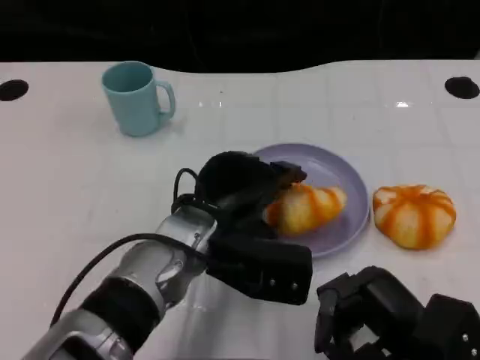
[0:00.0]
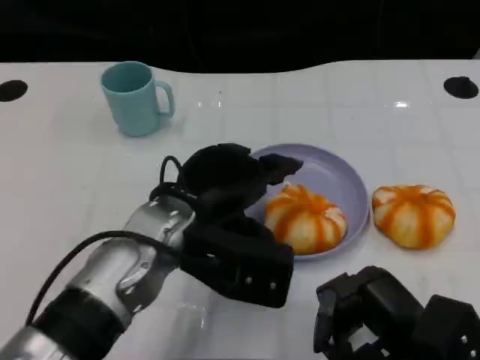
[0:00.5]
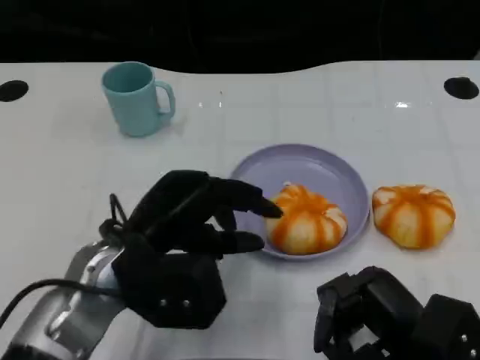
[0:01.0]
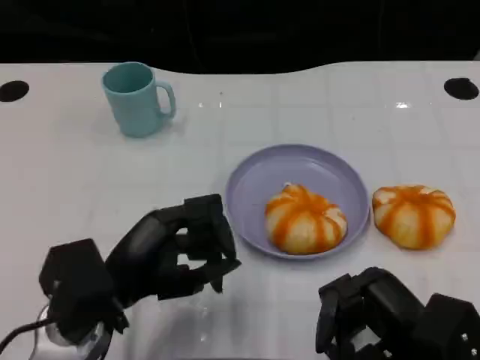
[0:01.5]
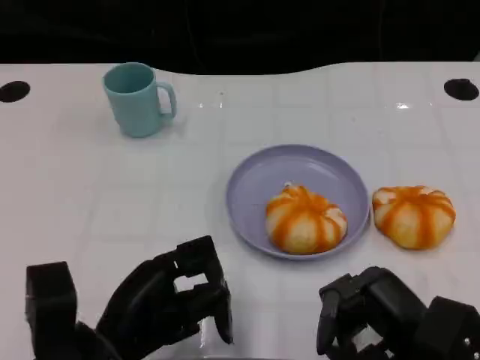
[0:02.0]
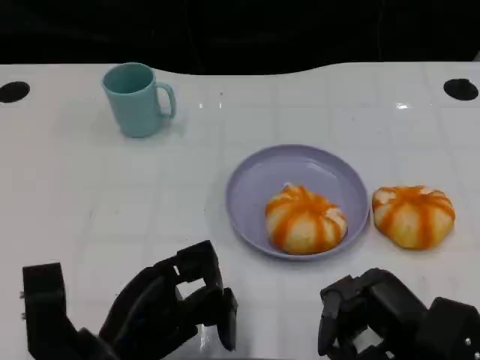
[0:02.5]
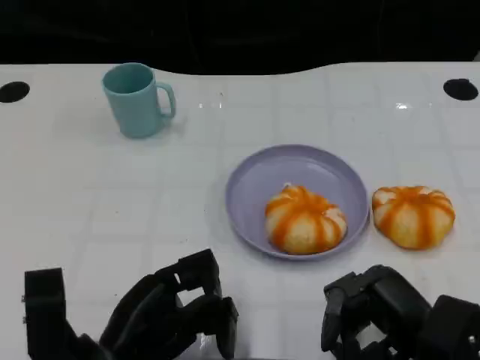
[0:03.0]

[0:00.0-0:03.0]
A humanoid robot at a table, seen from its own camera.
Task of the whole recording: Grasp the bread from the table and place it into the plate.
0:00.0 to 0:01.5: The left hand is displaced to the left and backward by about 15 cm.
0:01.5 to 0:03.0: The left hand moves roughly 5 cm.

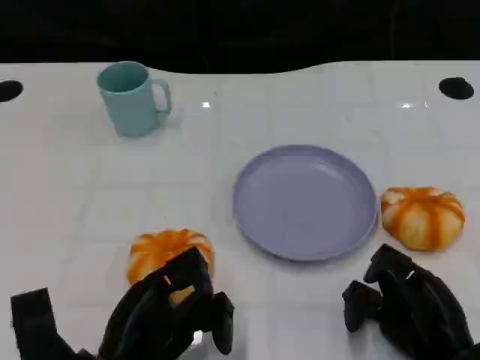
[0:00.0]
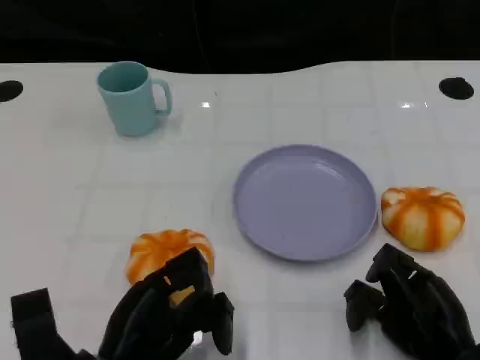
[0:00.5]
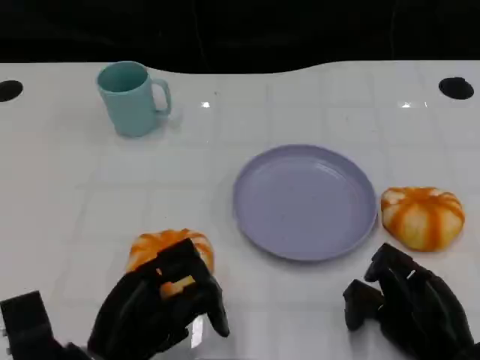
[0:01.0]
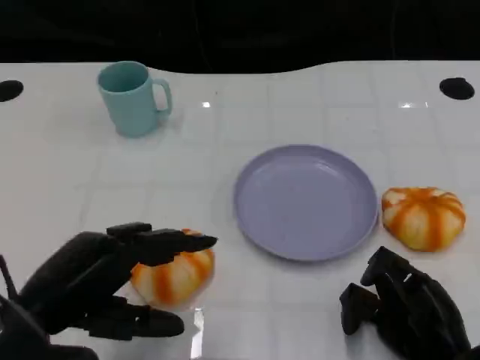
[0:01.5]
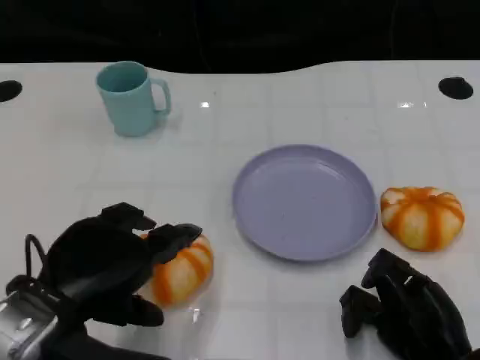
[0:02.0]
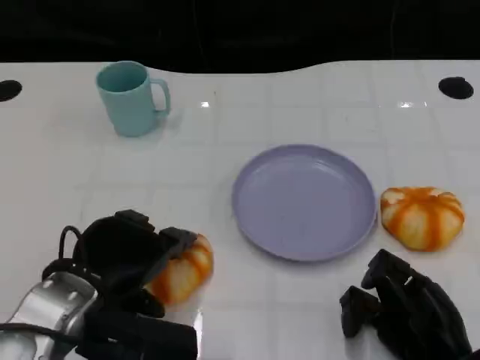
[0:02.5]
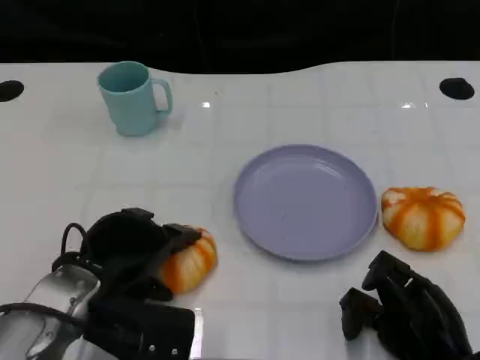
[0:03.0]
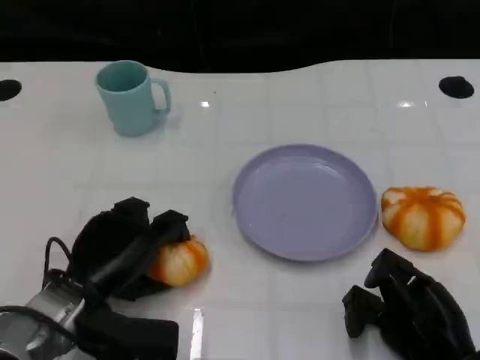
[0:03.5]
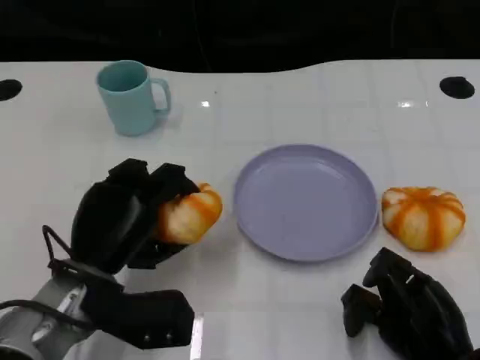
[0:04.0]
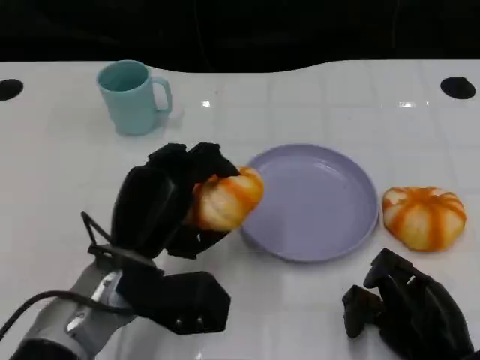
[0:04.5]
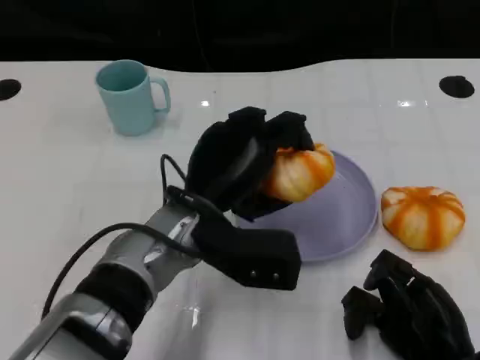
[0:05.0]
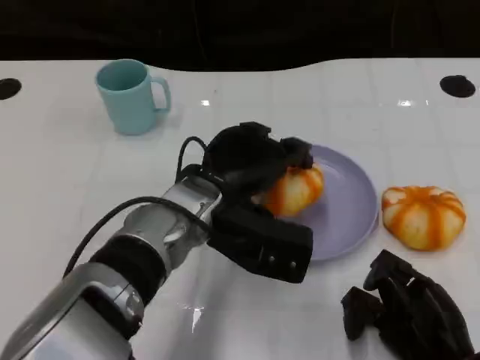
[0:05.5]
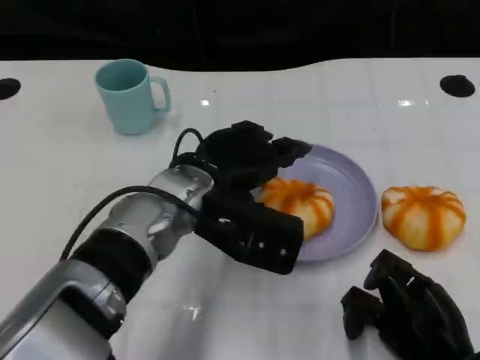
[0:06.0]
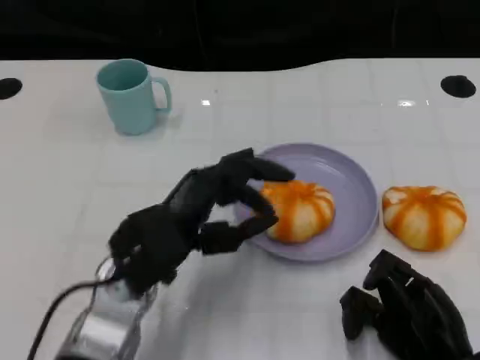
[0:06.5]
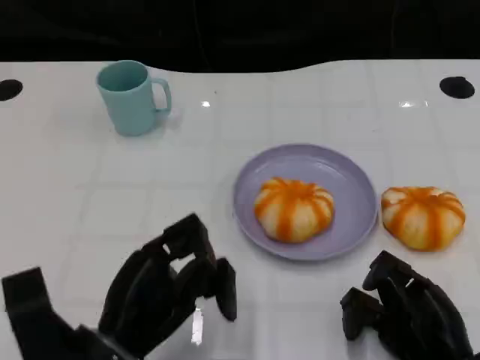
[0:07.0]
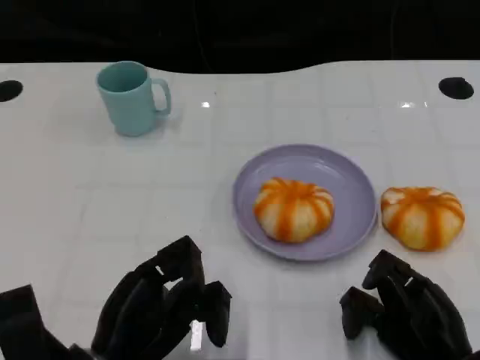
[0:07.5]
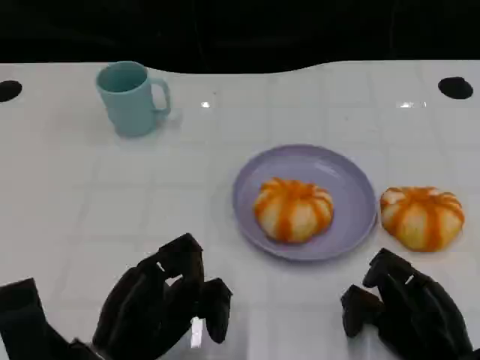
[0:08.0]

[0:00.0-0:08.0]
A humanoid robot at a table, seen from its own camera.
Task of the whole recording: Grasp the bread from the table and place it into the plate.
0:00.0 to 0:02.0: The left hand shifts some 10 cm upward.
0:02.0 to 0:04.0: The left hand moves downward and forward, approximately 10 cm.
0:04.0 to 0:06.0: The left hand goes some 15 cm to the right, upward and forward.
0:06.0 to 0:08.0: The left hand goes approximately 20 cm backward, to the left and downward.

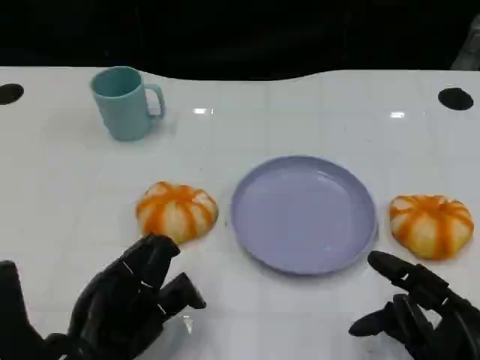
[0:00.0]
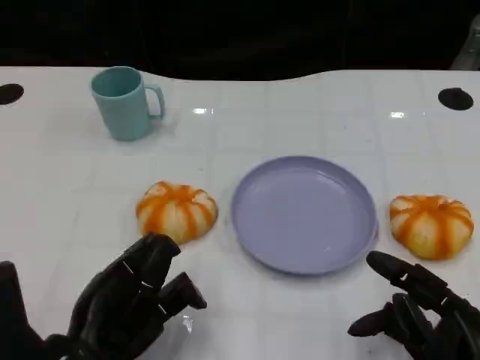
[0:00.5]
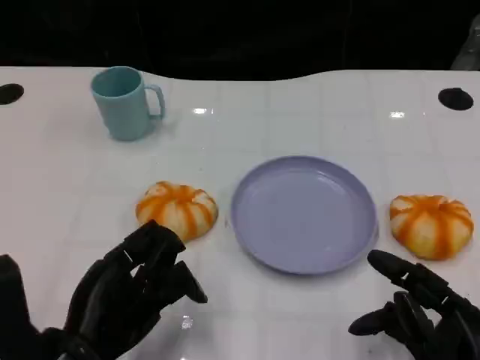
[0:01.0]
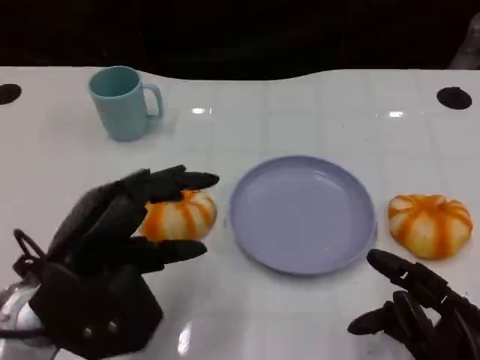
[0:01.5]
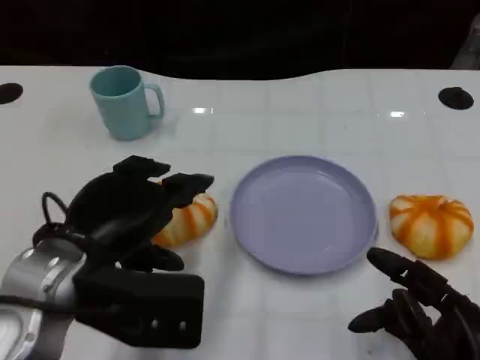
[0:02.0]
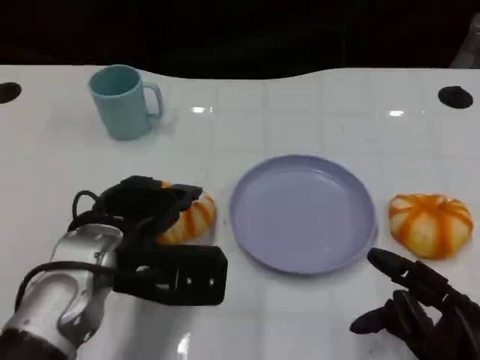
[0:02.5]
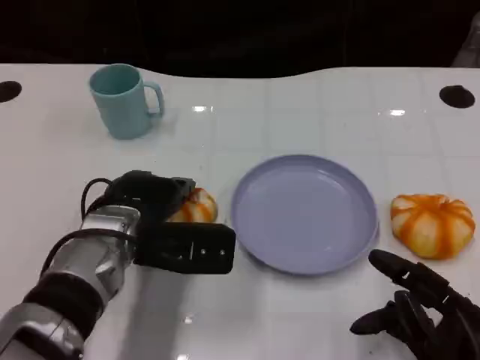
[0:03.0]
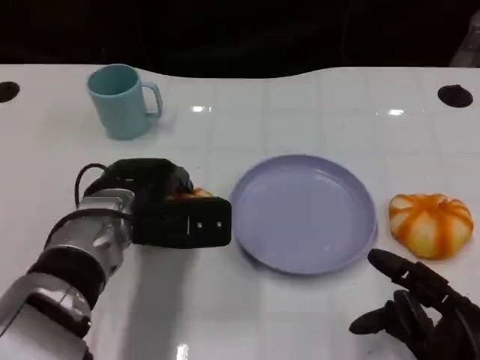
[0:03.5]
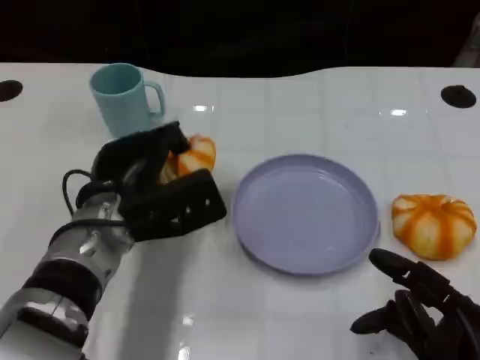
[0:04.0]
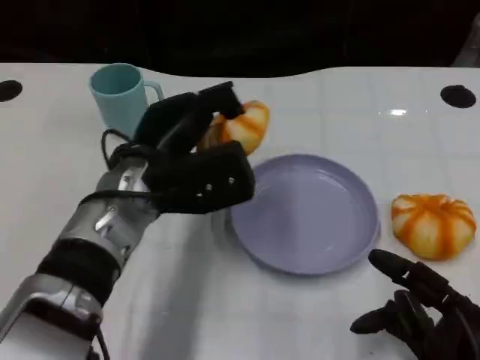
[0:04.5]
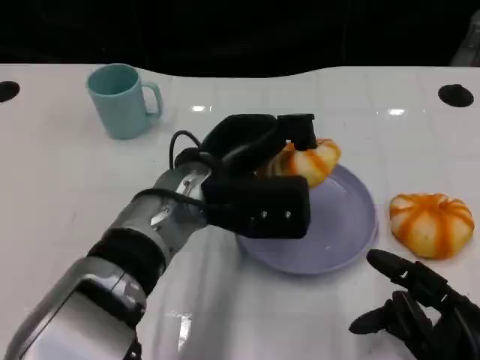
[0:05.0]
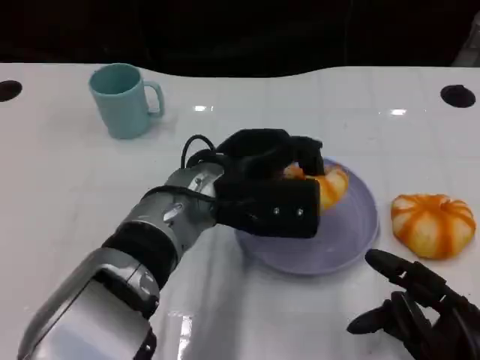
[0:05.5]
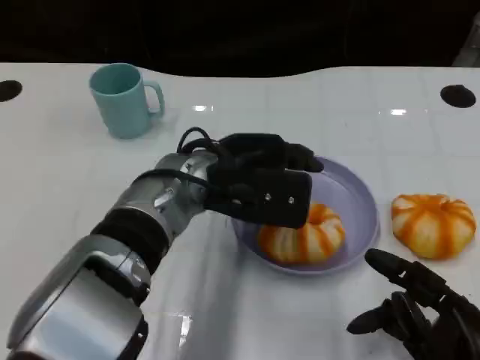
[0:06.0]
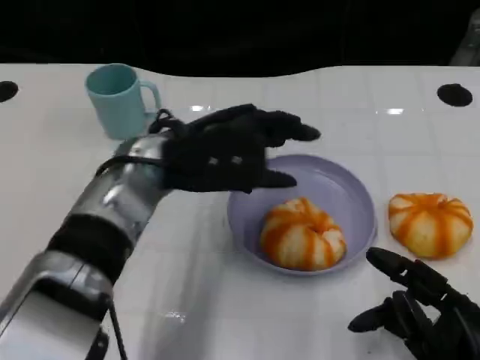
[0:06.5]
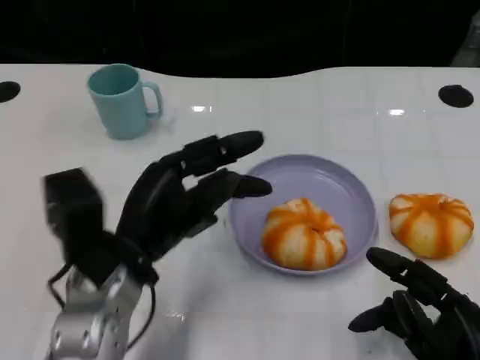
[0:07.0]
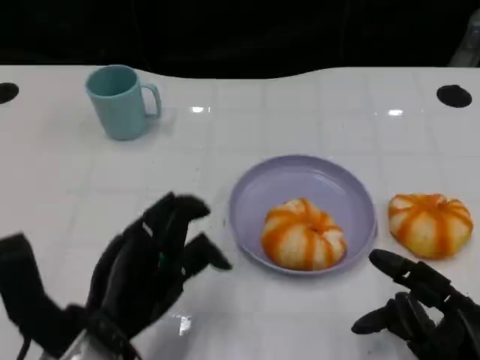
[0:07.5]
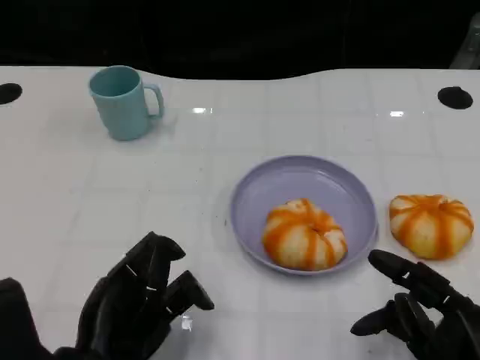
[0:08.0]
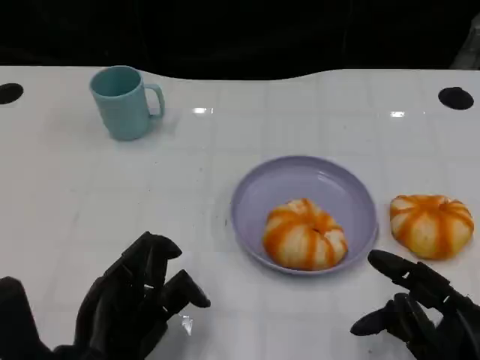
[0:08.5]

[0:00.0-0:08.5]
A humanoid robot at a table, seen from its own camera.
Task of the whole recording: Grasp the bread from the table and place it into the plate.
0:00.0 to 0:02.0: The left hand heads upward and forward, covering some 10 cm.
0:02.0 to 0:04.0: The left hand travels forward and downward by some 10 cm.
0:04.0 to 0:06.5: The left hand travels upward by roughly 5 cm.
0:06.5 to 0:08.5: The left hand moves backward, downward and to the left, some 20 cm.

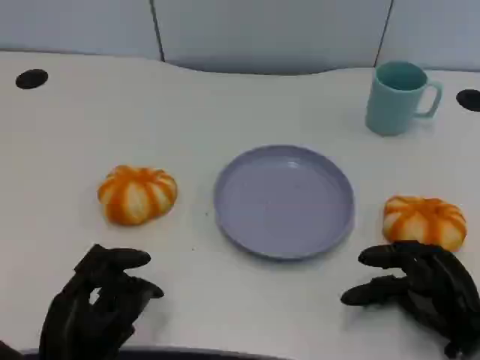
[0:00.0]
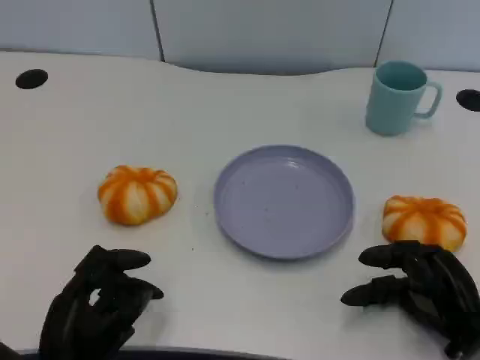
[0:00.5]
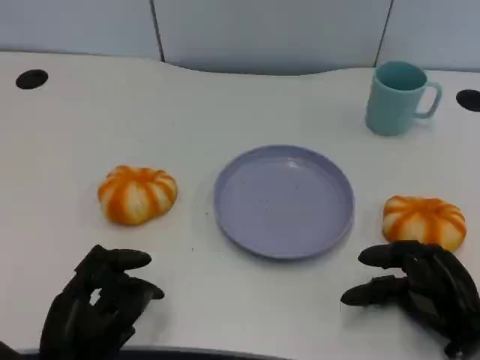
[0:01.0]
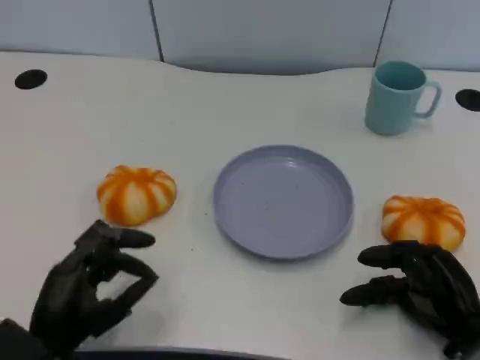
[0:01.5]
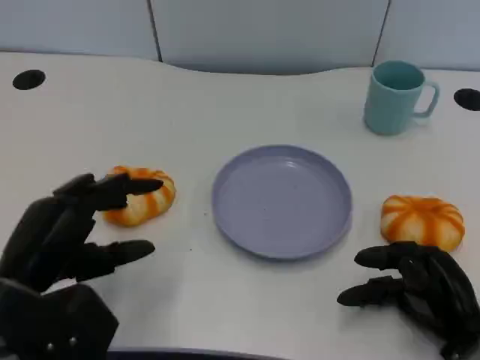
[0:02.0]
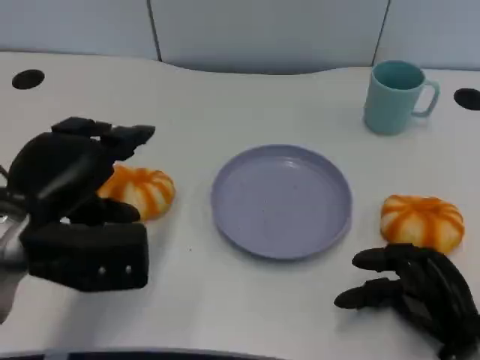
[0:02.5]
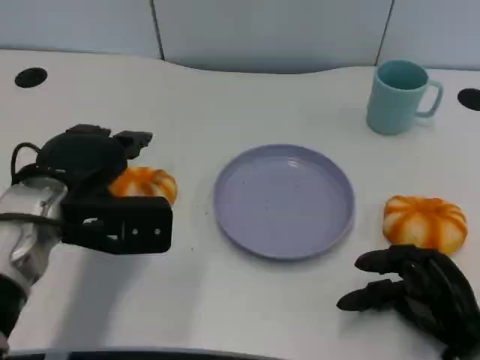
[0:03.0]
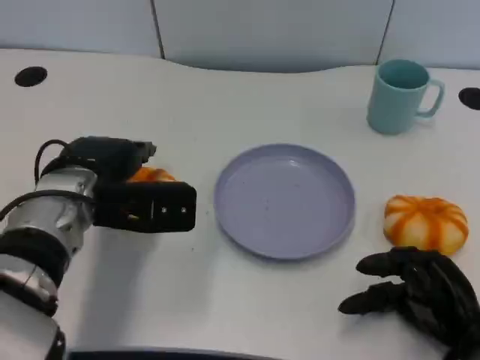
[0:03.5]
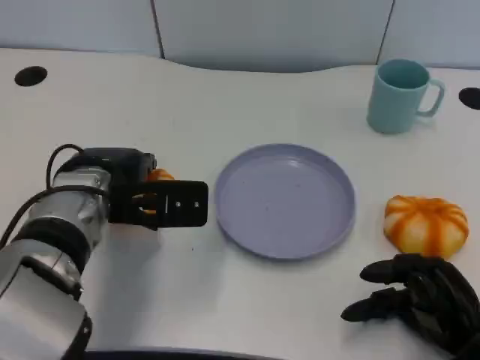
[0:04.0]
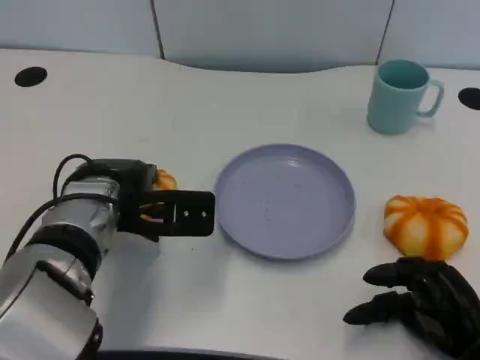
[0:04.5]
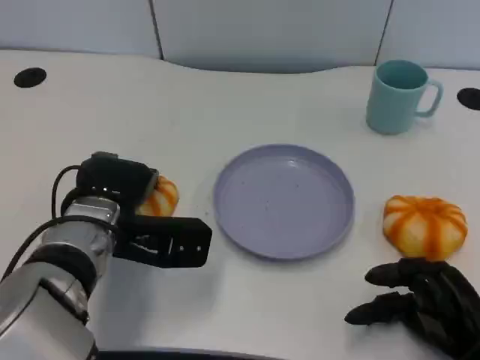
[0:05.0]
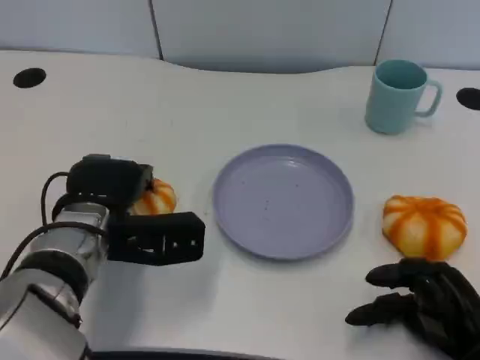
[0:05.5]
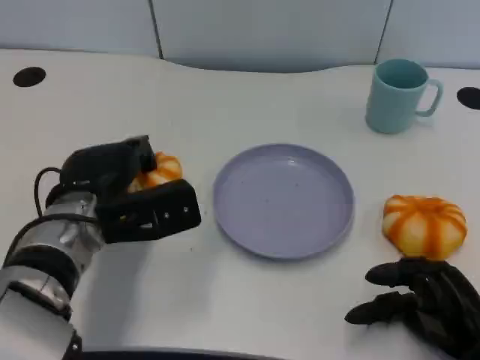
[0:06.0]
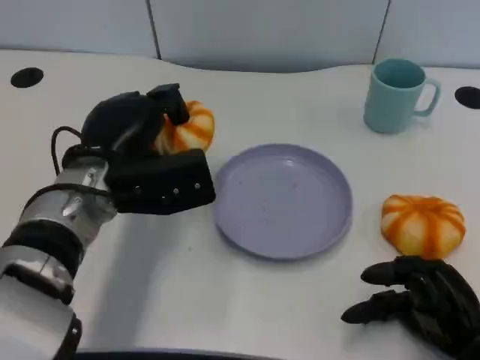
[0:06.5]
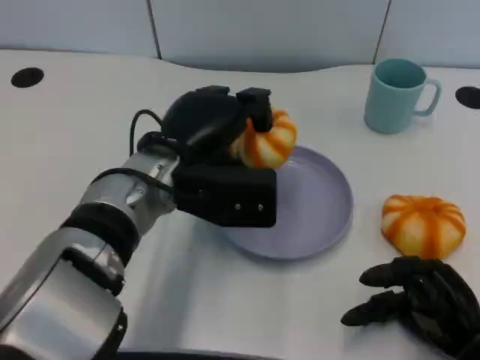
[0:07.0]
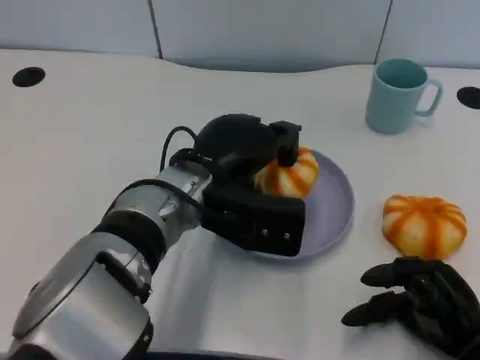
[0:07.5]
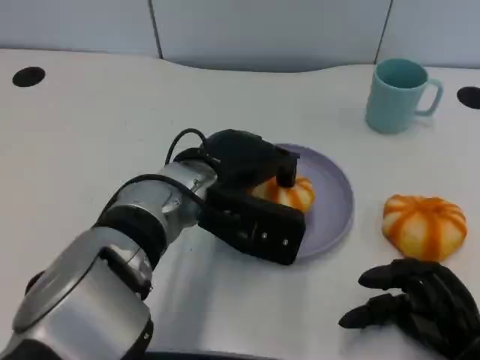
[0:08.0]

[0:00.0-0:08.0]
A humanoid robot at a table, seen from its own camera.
Task of the whole recording: Grasp the bread from the table and place it into the plate.
0:00.0 to 0:02.0: The left hand heads upward, covering approximately 10 cm.
0:02.0 to 0:04.0: The left hand shifts about 15 cm forward and to the right.
0:06.0 to 0:08.0: The left hand is displaced to the right by roughly 10 cm.
